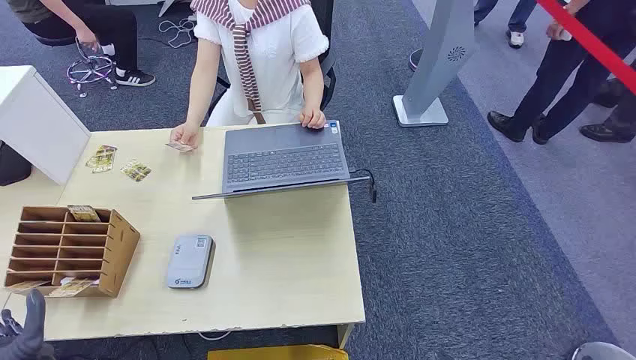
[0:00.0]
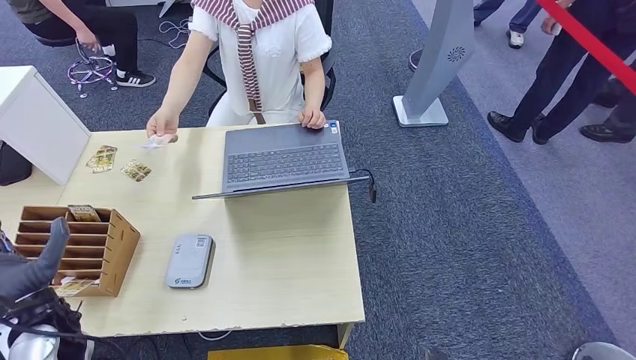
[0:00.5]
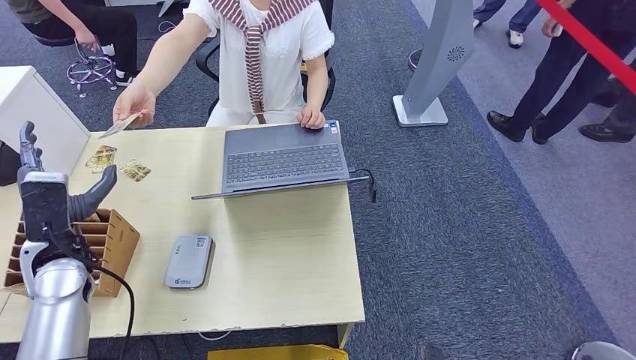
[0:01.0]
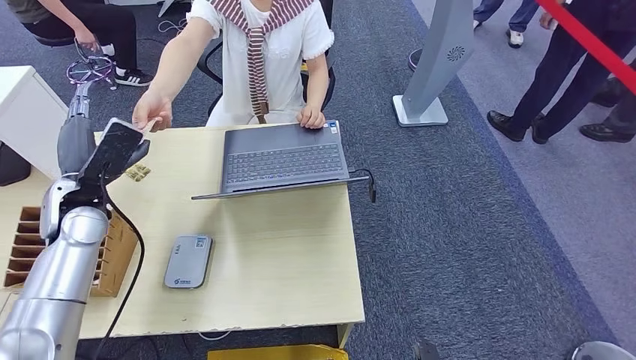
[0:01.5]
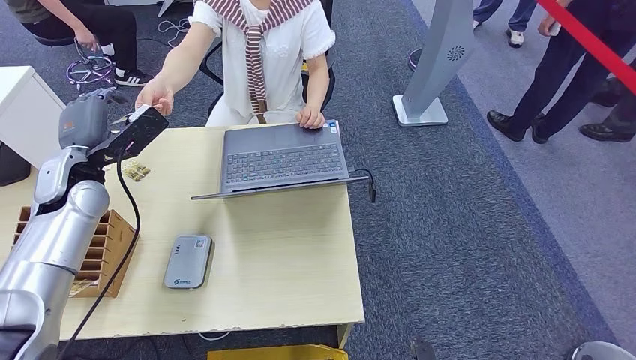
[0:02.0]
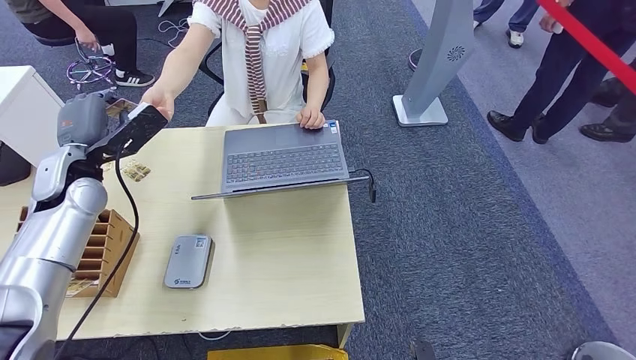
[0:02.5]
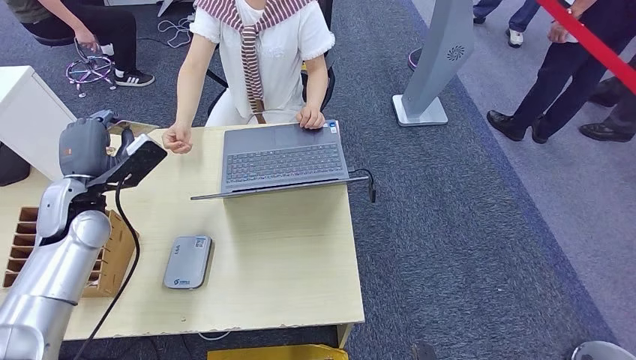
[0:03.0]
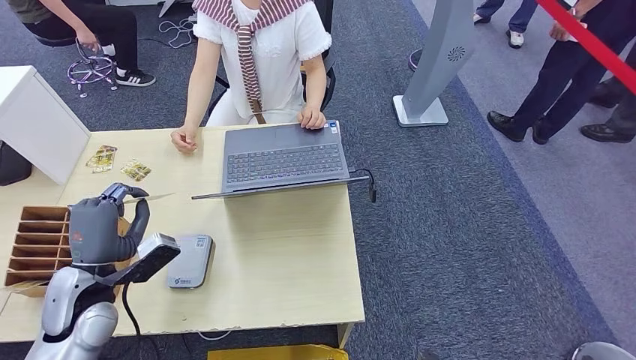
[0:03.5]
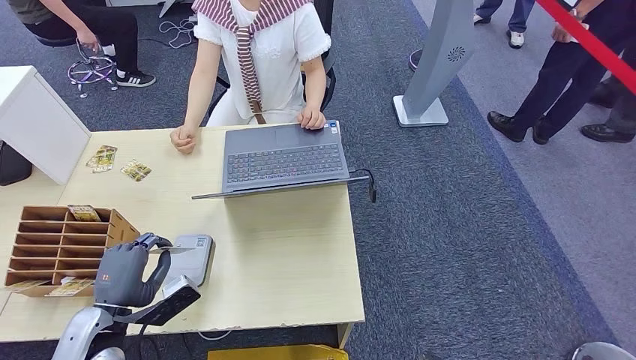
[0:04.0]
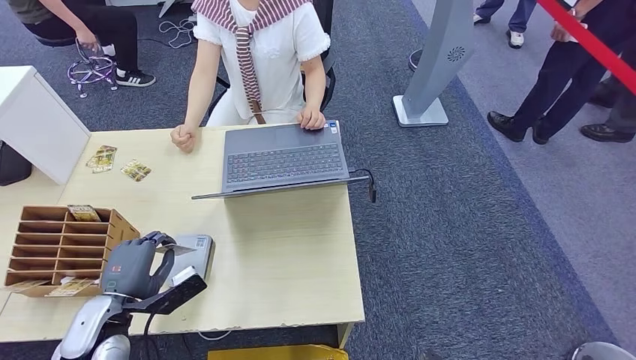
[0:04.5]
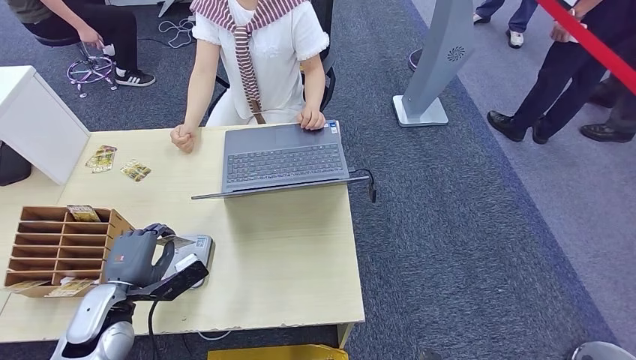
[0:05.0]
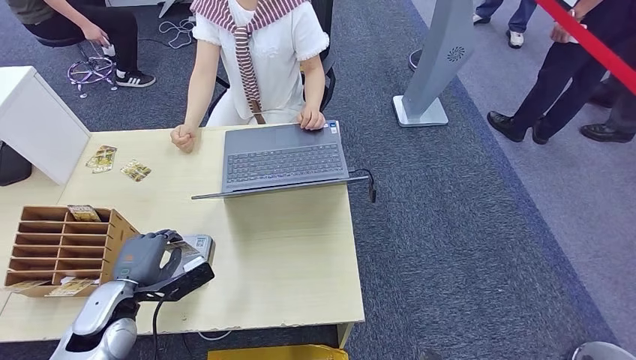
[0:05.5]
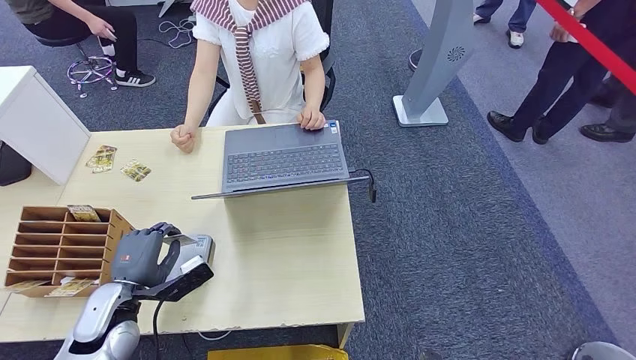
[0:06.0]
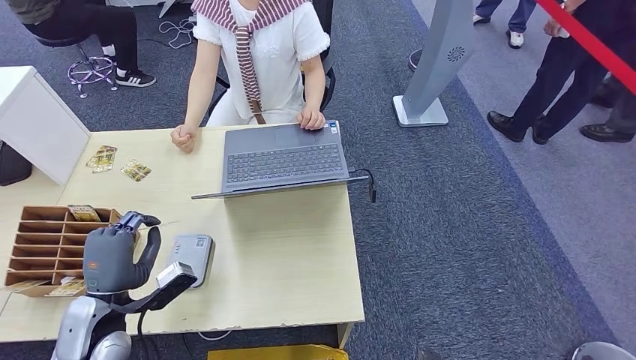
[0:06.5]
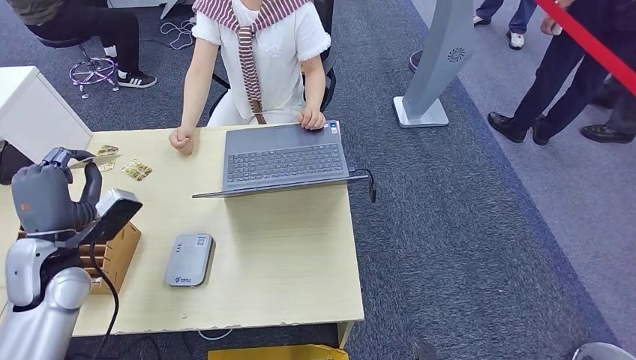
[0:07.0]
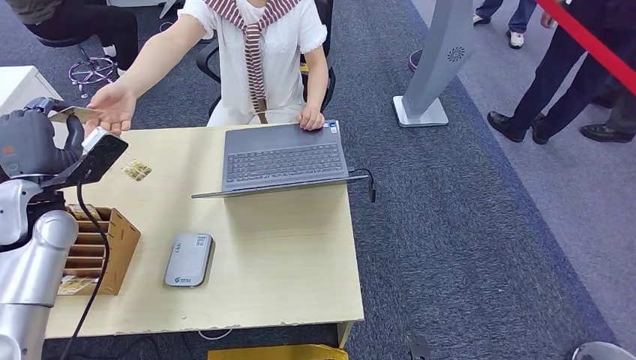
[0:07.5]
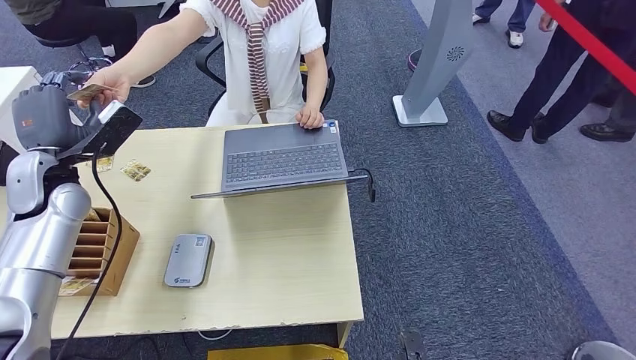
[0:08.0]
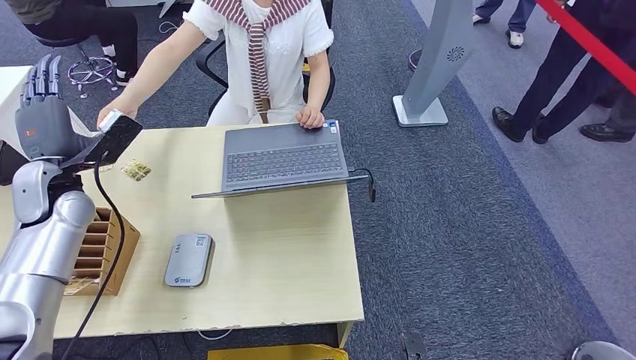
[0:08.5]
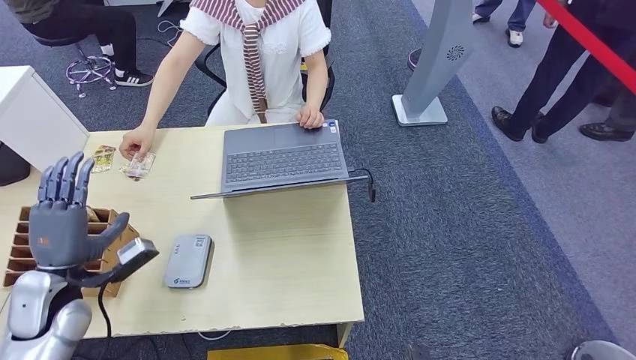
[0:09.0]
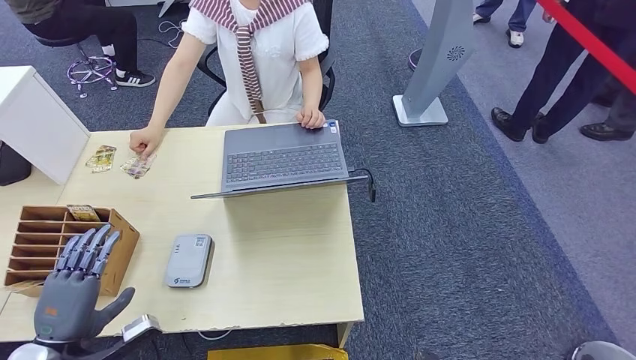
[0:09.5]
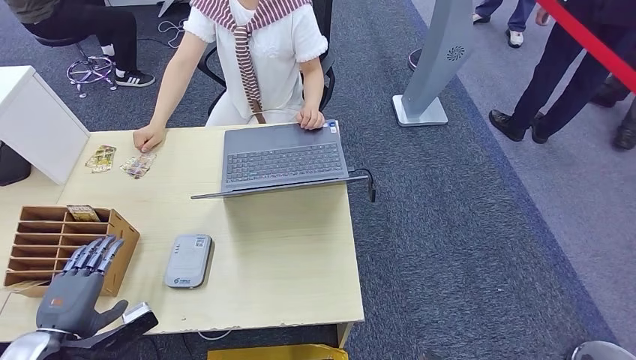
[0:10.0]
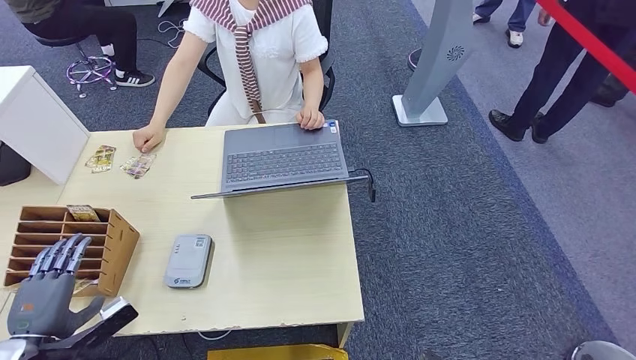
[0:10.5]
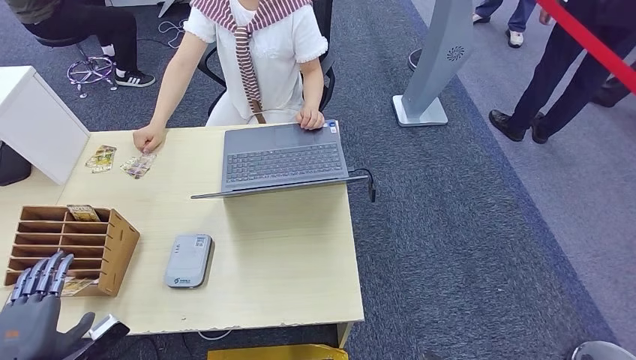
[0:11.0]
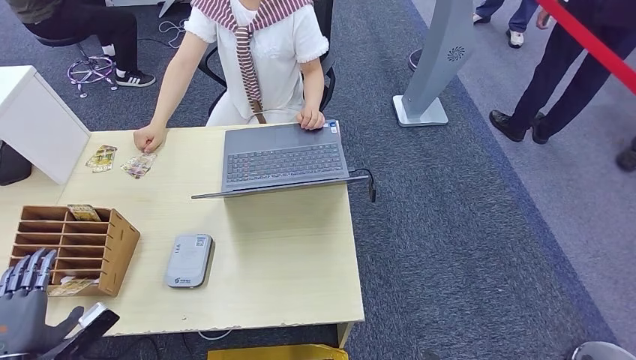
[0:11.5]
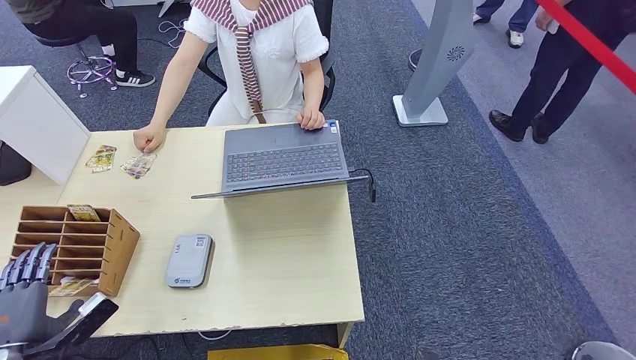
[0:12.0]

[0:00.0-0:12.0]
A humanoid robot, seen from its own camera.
Step, 0:00.0 to 0:03.0: Take the ID card from the person's hand.
Step, 0:03.5 to 0:05.0: Place the ID card on the card reader.
Step, 0:06.0 to 0:08.5: Hand the ID card to the person.
0:02.0 to 0:04.0: The left hand travels backward and downward by roughly 25 cm.
0:04.0 to 0:06.0: The hands move only a little.
0:08.0 to 0:10.0: The left hand shifts some 30 cm backward and downward.
0:10.0 to 0:12.0: The left hand is displaced to the left by roughly 5 cm.

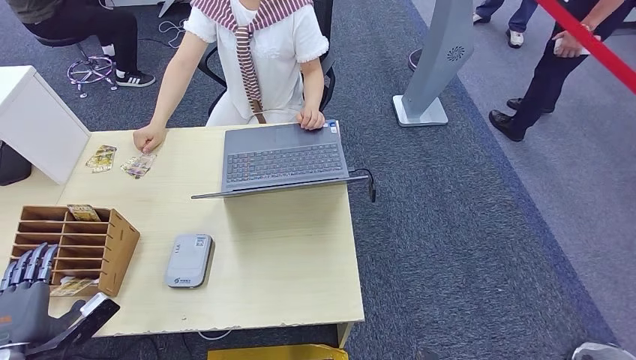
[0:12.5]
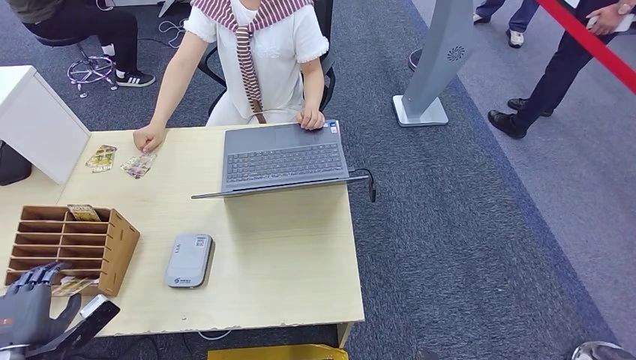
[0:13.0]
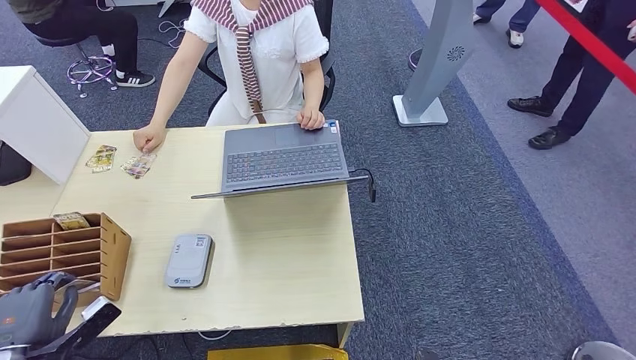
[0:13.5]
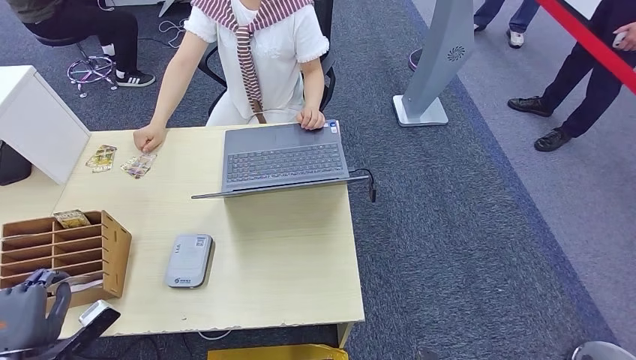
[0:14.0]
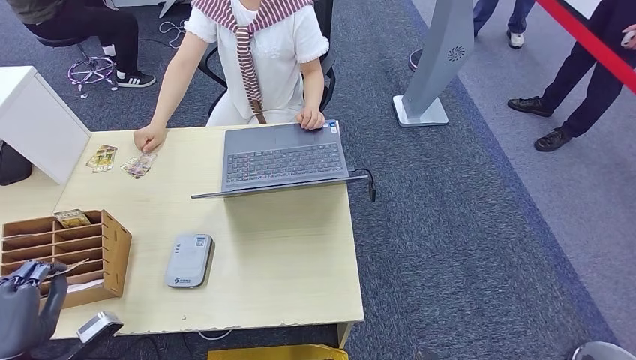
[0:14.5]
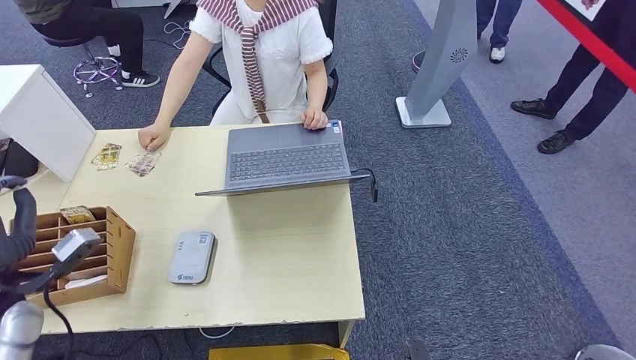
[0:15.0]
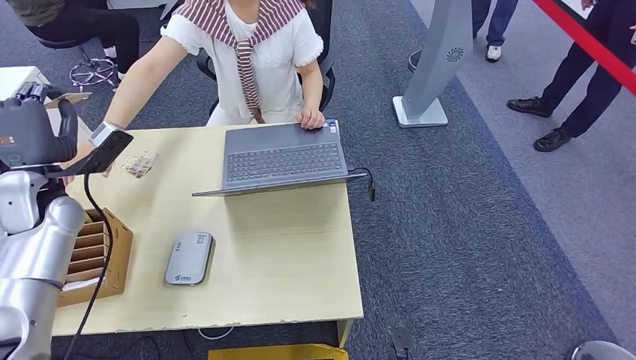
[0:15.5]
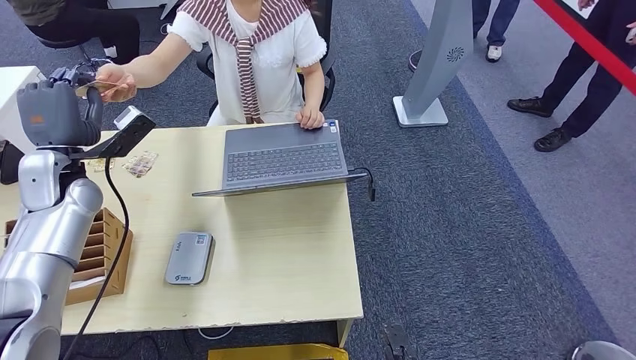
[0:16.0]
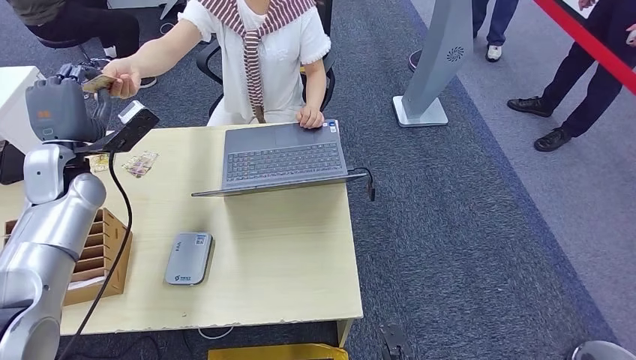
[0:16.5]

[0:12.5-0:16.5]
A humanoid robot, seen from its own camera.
Step, 0:14.5 to 0:16.5: Hand the room key to the person.
0:12.5 to 0:14.5: The left hand shifts by roughly 5 cm.

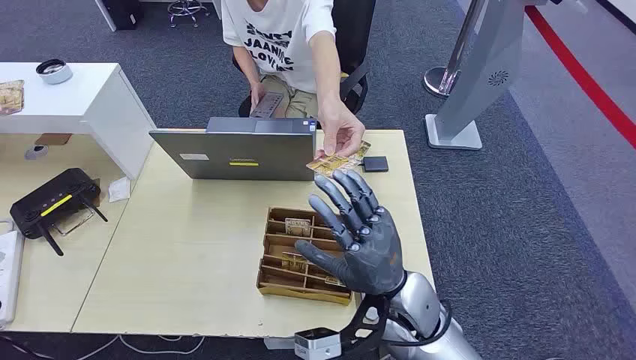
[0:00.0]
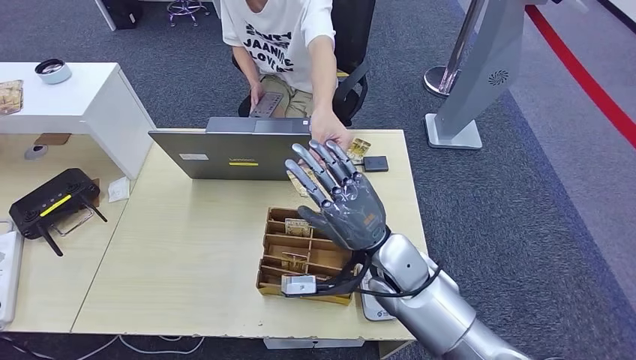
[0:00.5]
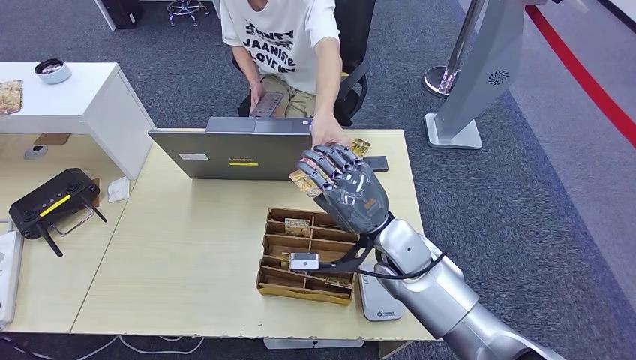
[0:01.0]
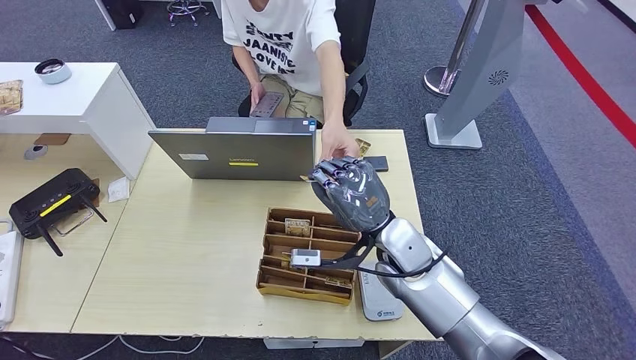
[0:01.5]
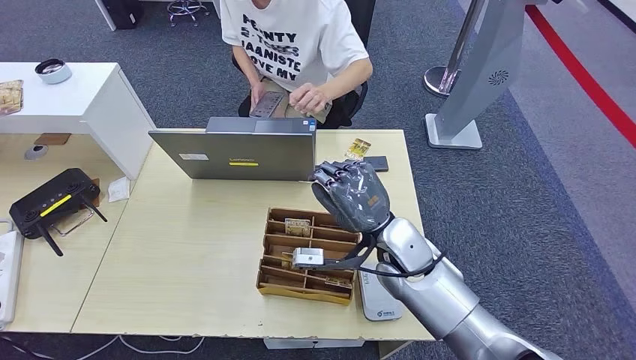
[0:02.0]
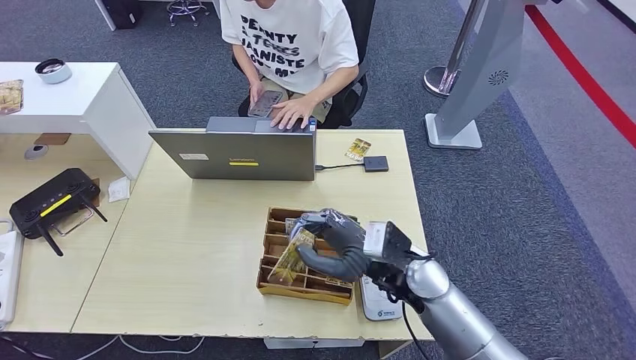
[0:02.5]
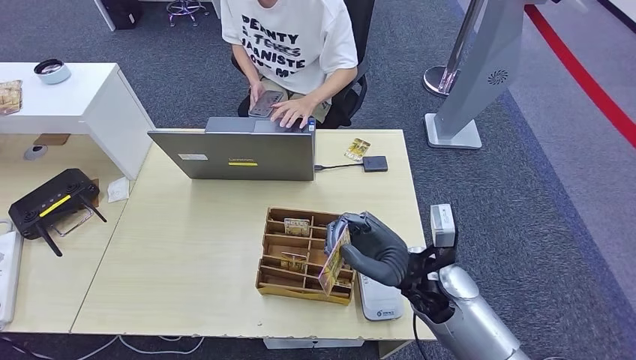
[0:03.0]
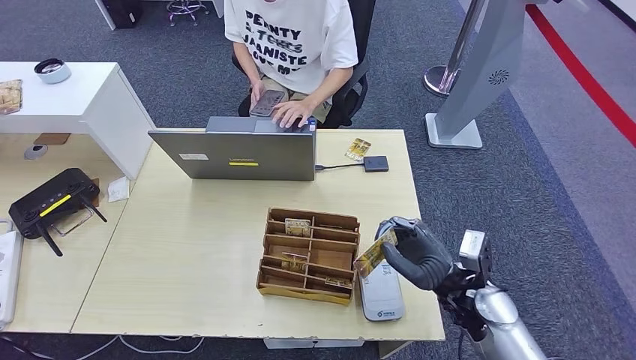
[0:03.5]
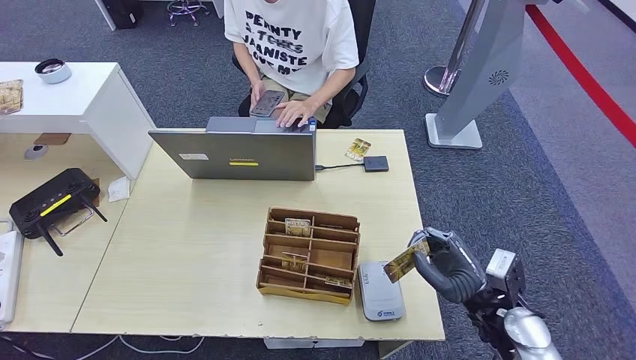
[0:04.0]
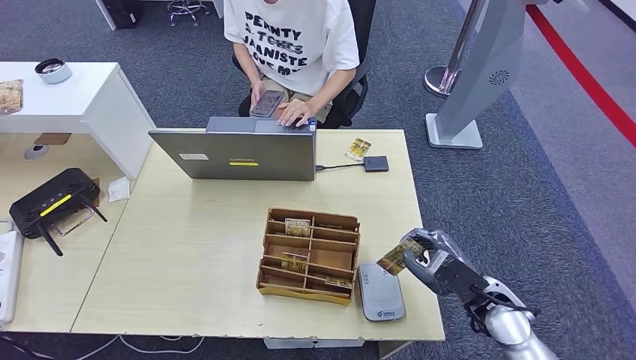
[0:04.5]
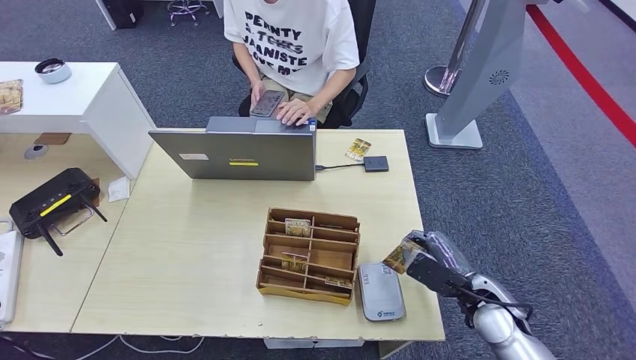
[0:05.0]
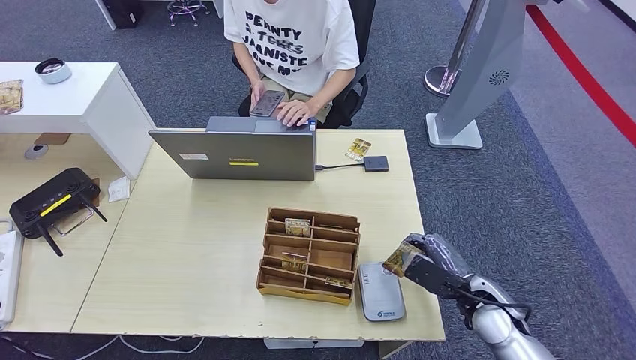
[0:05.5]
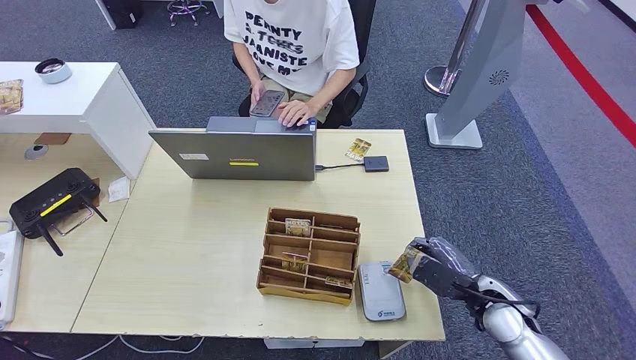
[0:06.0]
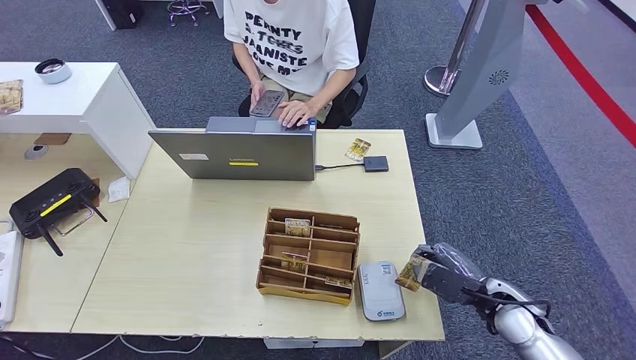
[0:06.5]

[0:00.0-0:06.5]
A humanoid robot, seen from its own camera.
Step, 0:00.0 to 0:02.0: Take the ID card from the person's hand.
Step, 0:02.5 to 0:06.0: Place the ID card on the card reader.
0:02.0 to 0:04.5: The right hand goes roughly 20 cm to the right, backward and downward.
